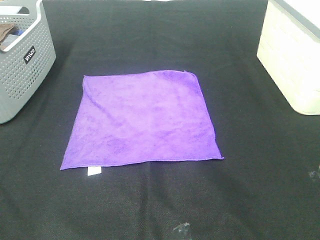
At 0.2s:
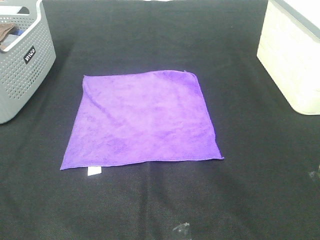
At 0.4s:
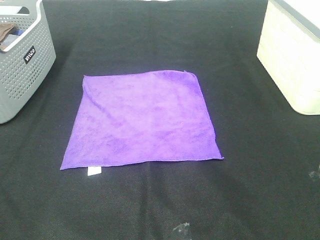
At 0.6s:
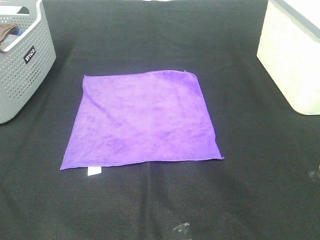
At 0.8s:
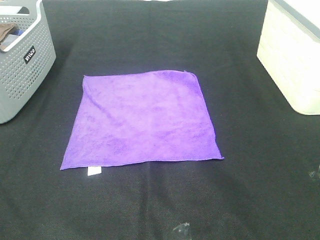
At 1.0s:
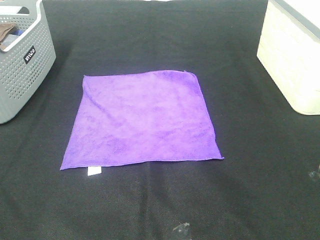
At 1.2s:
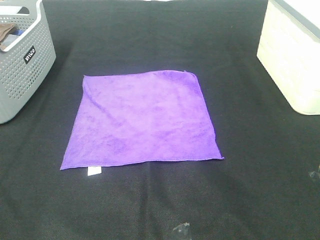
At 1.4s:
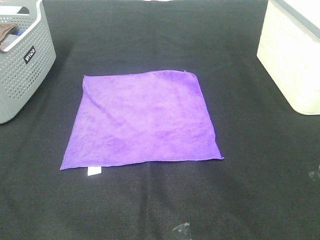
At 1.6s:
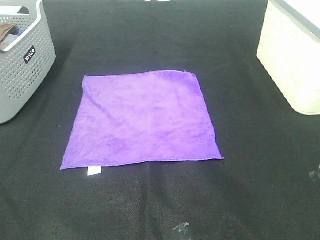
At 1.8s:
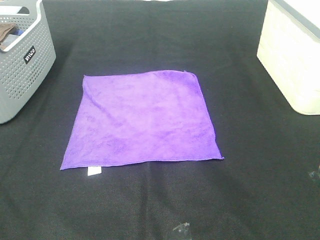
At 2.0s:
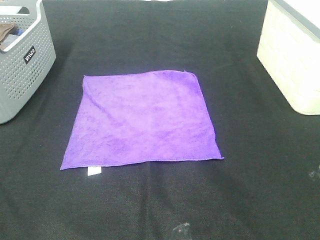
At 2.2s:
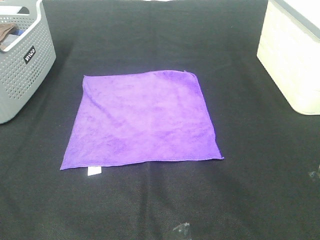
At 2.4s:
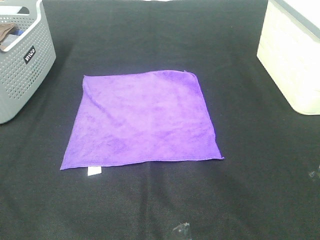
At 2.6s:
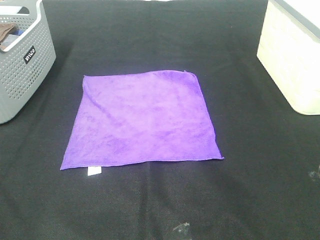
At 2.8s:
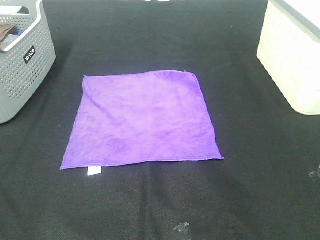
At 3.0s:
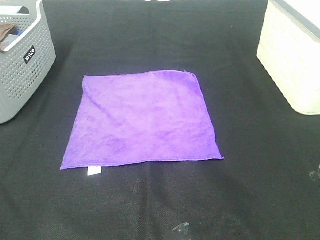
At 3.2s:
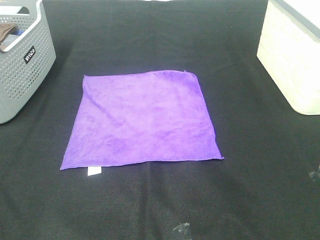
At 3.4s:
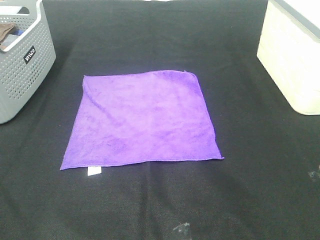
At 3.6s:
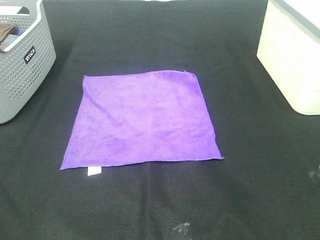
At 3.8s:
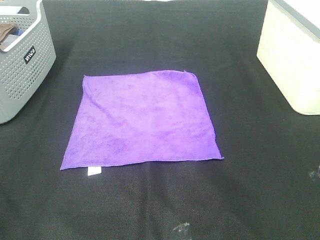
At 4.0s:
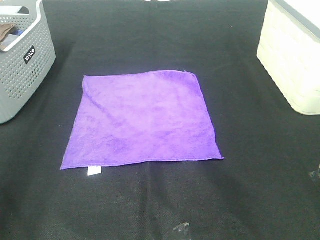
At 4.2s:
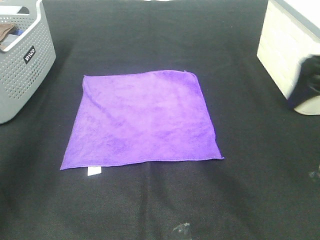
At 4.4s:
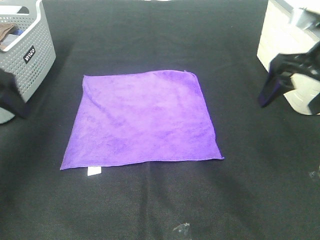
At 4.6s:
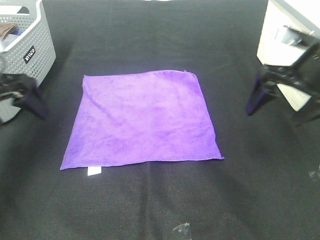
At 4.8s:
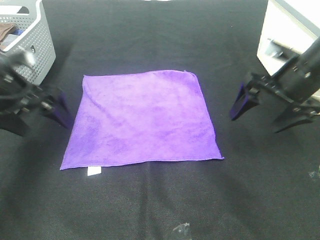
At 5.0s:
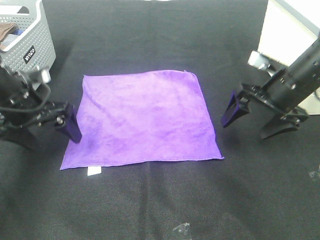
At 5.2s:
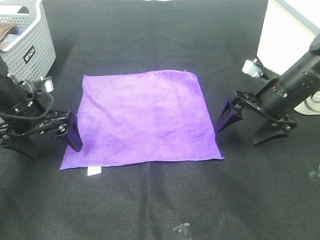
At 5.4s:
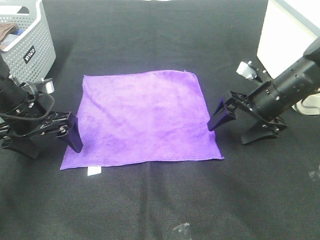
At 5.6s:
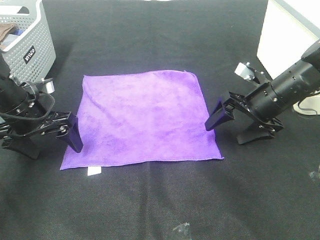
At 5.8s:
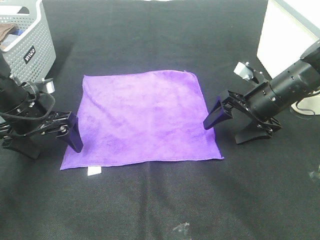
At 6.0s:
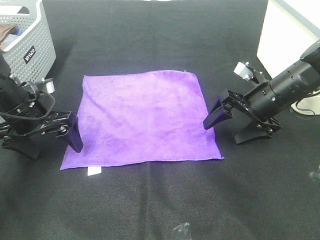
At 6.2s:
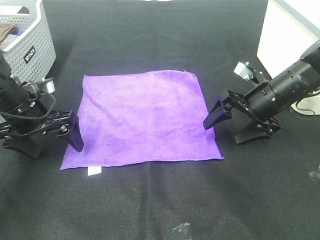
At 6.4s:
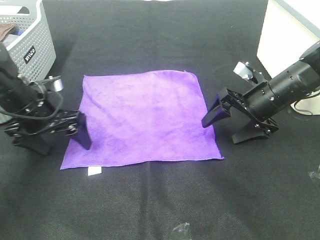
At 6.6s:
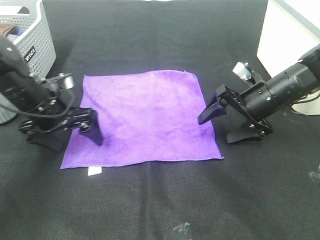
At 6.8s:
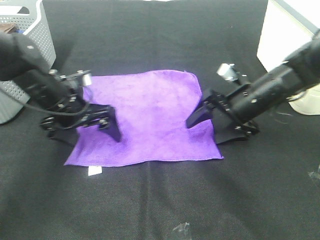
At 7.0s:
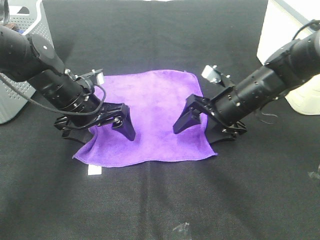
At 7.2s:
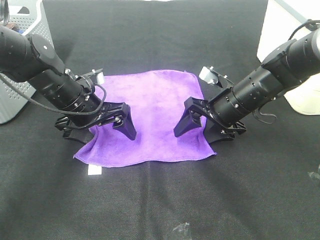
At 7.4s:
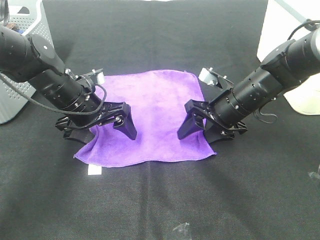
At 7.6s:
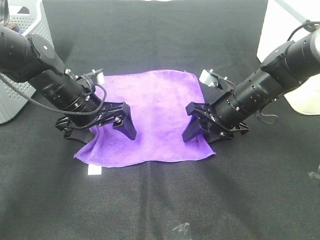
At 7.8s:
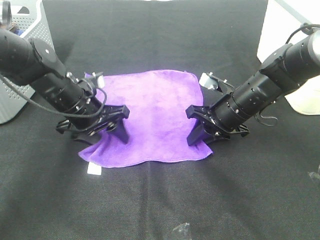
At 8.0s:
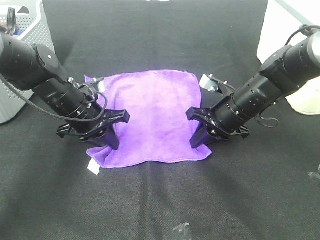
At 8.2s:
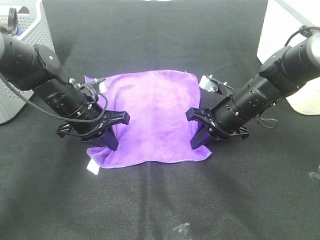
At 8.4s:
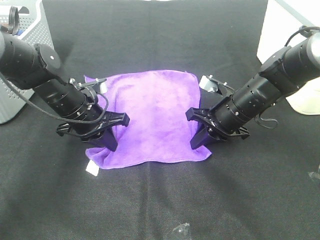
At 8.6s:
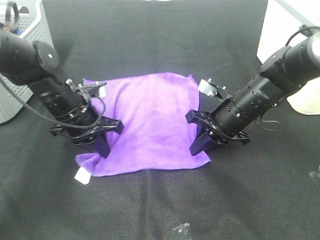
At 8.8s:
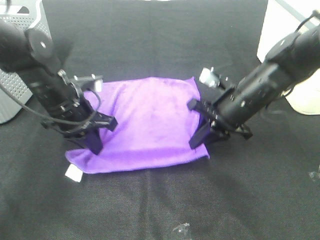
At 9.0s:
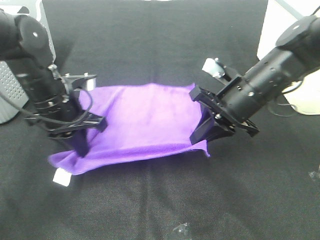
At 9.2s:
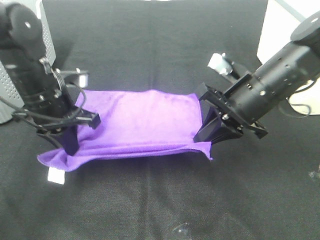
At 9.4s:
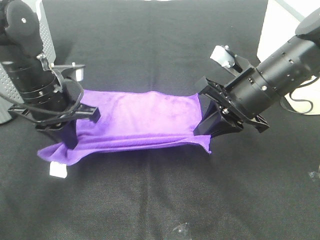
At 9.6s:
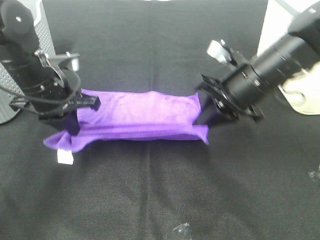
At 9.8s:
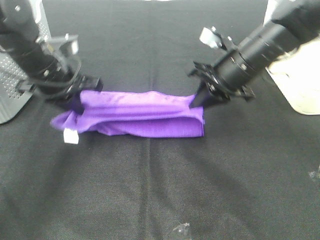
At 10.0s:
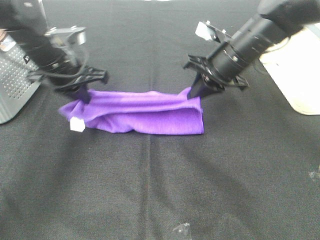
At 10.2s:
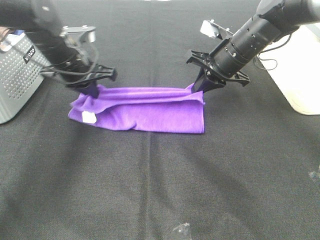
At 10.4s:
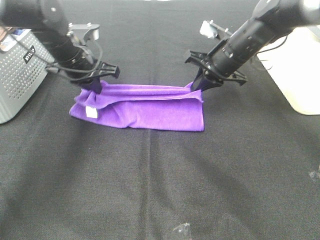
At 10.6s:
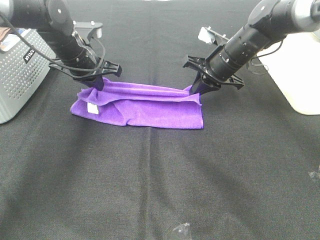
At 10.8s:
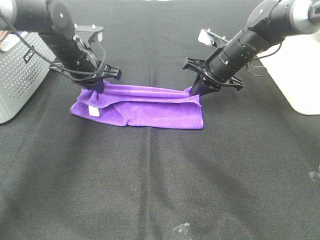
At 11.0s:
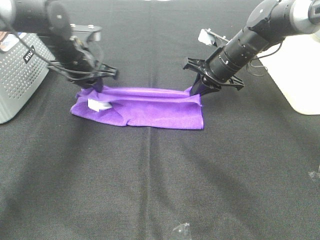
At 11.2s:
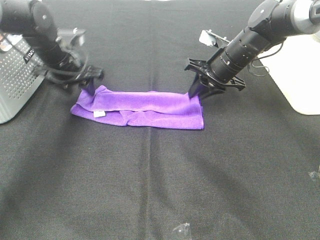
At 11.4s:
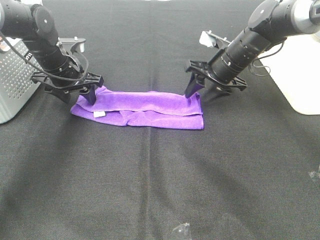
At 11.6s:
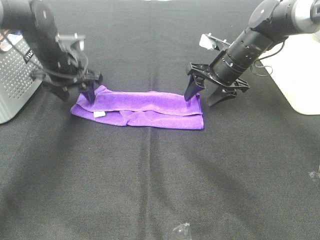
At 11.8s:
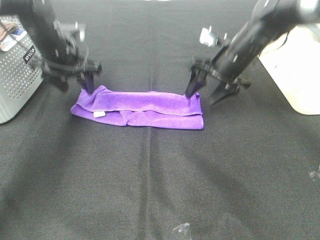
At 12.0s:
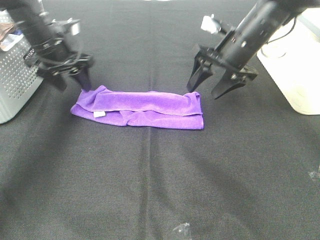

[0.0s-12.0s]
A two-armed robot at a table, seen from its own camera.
Task of the whole recording: Fold towels.
Step, 0.0s to 8.0s: Left hand: grab the bottom left corner of purple towel.
Step, 0.0s to 8.0s: Right hand: grab the bottom right corner of purple towel.
Step, 8.2s to 10.8s: Left hand: fold the purple towel up.
Step, 8.2s to 10.8s: Right hand: fold the purple towel up.
1.6s to 3.0s: Both grippers stay put.
3.0s to 4.4s: The grippers both shift forward by roughly 30 cm.
4.4s to 6.0s: The left gripper goes approximately 15 cm downward and to the right. The right gripper is displaced downward and forward by roughly 15 cm.
6.0s to 7.6s: The right gripper moves to the left, some 5 cm, and closes, while the left gripper moves to the right, roughly 10 cm.
7.6s to 9.0s: The left gripper ends up about 5 cm from where it was, and closes up. Meanwhile the right gripper moves upward, about 5 cm, and closes its fingers.
9.0s to 10.4s: Both grippers travel together forward, approximately 15 cm.
10.4s to 12.0s: The left gripper moves to the left, about 5 cm, and opens up. The right gripper changes place by about 5 cm, and opens.

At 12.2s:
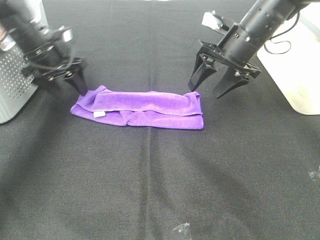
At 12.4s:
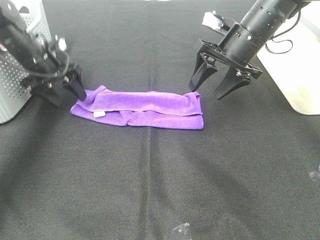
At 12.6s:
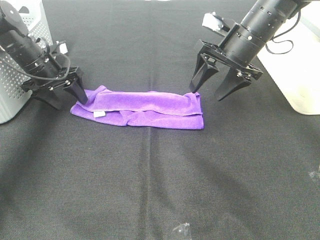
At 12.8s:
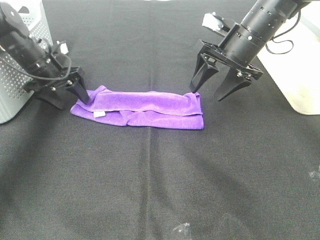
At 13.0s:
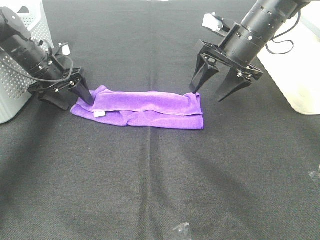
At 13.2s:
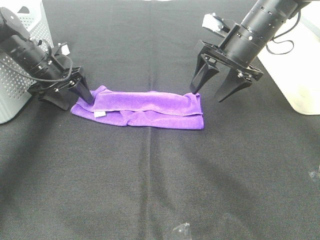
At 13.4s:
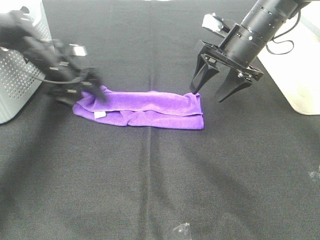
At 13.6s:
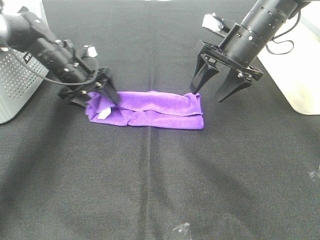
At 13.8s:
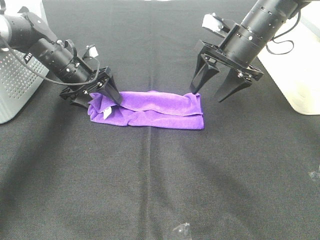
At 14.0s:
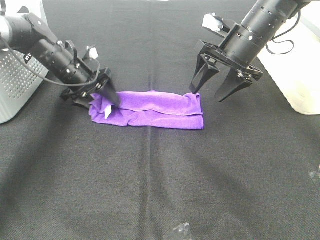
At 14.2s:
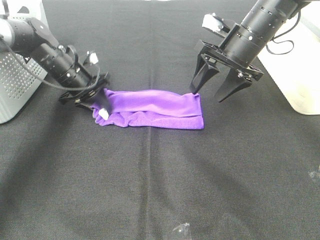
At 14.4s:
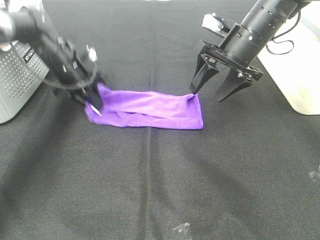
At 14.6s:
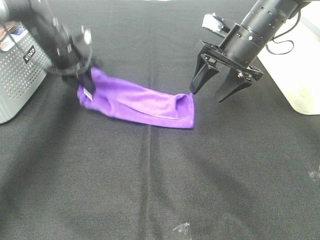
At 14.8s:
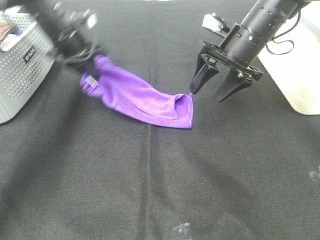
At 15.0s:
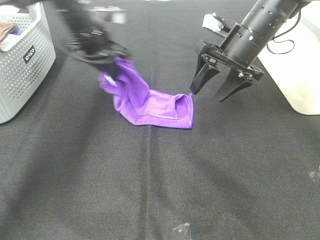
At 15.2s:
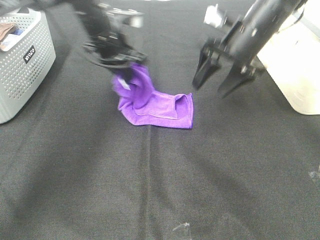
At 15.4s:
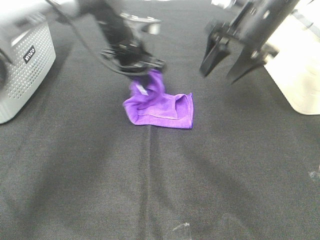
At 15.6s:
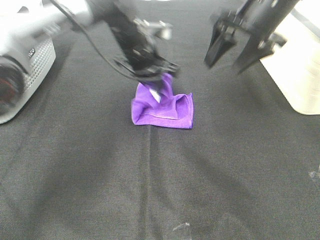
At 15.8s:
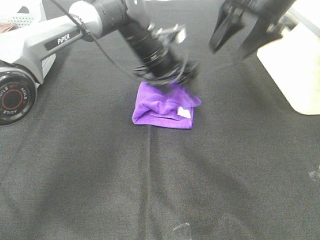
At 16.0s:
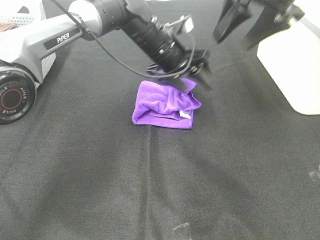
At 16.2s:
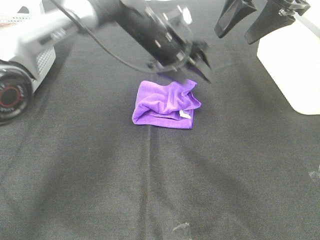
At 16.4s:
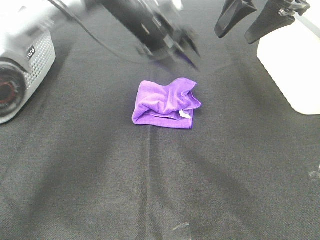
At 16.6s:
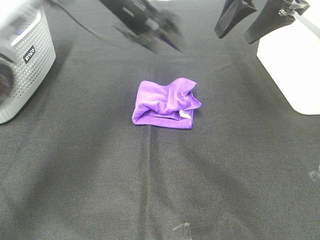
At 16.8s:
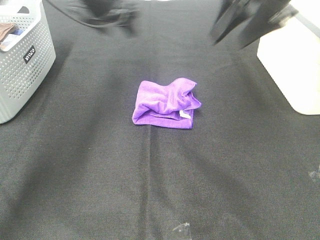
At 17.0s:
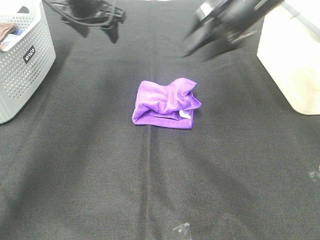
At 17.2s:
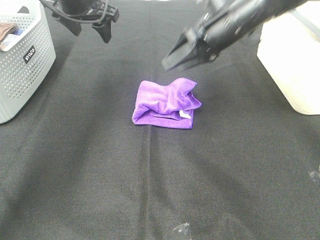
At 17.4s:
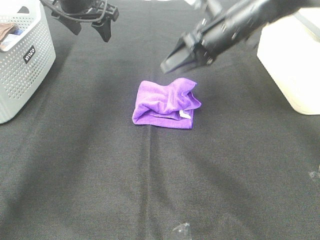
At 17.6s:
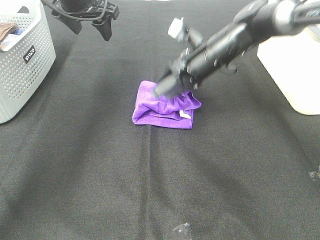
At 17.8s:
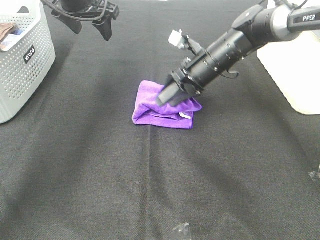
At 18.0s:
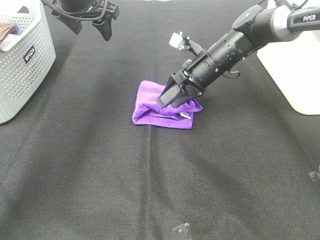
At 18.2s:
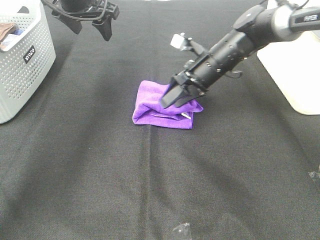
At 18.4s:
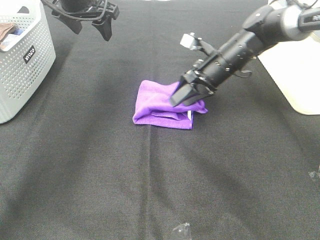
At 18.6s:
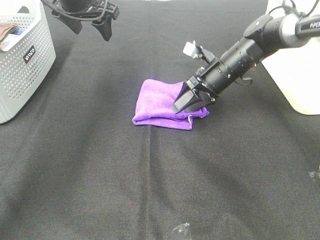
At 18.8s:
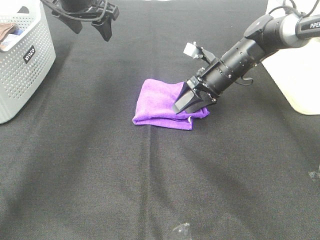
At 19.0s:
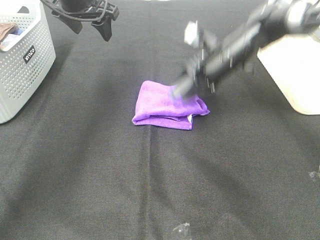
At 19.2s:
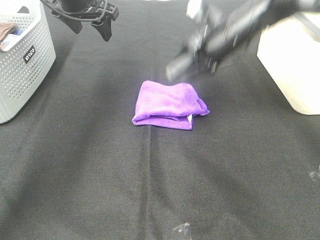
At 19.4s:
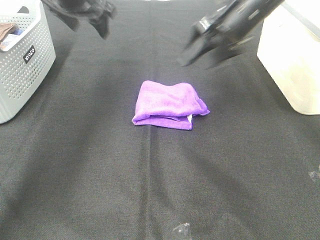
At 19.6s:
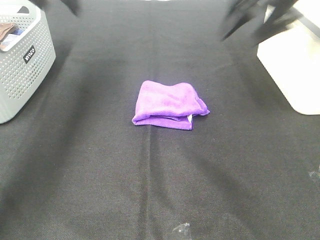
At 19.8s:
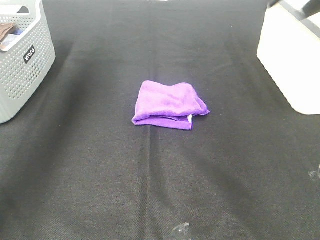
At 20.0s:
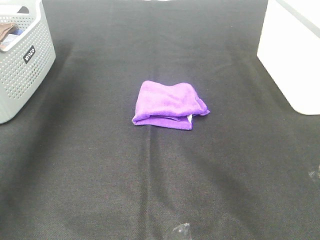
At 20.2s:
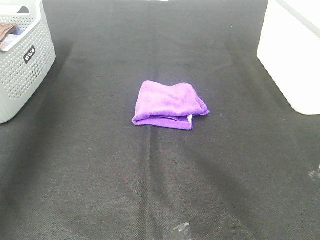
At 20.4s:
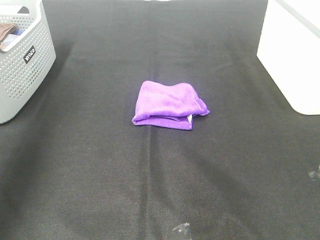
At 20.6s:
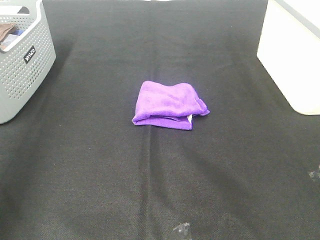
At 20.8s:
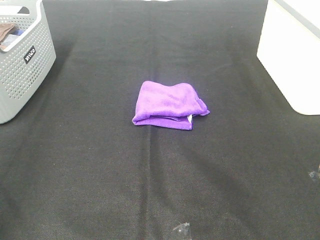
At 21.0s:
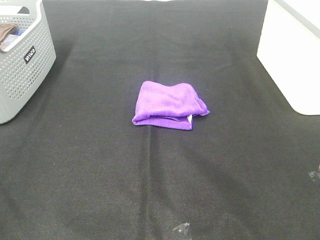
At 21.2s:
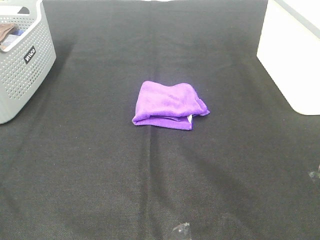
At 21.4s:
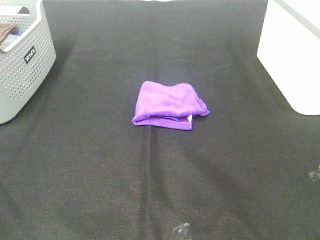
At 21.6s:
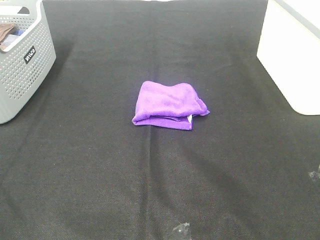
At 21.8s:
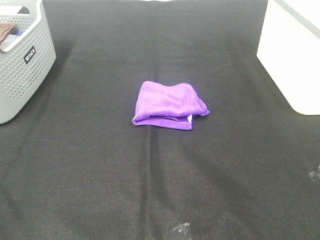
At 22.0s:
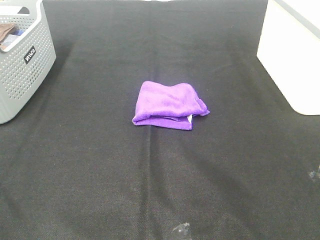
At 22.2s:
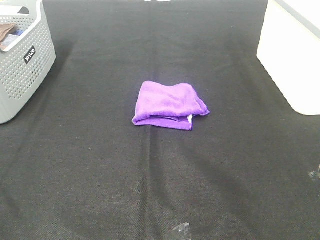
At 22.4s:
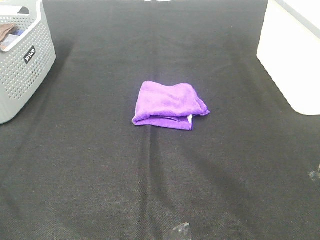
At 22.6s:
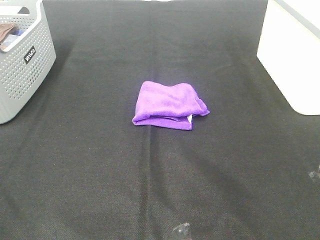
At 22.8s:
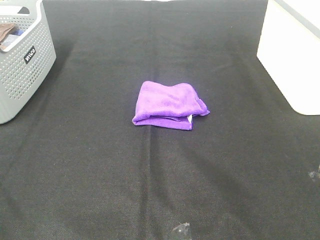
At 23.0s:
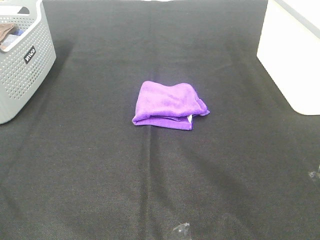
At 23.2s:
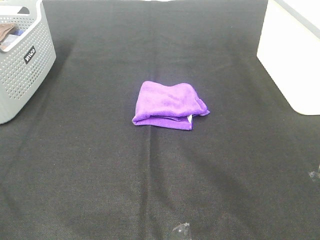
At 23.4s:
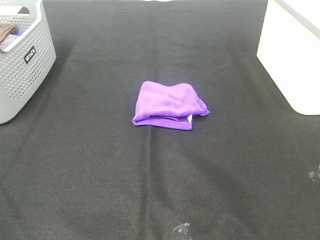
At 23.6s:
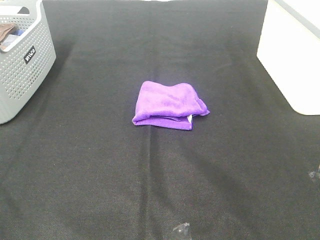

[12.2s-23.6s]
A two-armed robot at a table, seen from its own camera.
Task of the whole recording: Fold towels.
Step, 12.2s to 15.6s: Left hand: fold the purple towel from left to right.
Step, 15.8s to 18.0s: Right hand: adjust the purple towel.
12.2s to 13.6s: The left gripper moves to the right, some 5 cm.
13.6s to 15.0s: The left gripper shifts about 10 cm upward and to the right, and closes its fingers.
15.0s to 16.4s: The left gripper travels to the right by approximately 10 cm, and opens, while the right gripper goes approximately 15 cm upward.
16.4s to 17.8s: The right gripper is displaced downward by some 20 cm. The left gripper goes about 15 cm to the left and upward.
17.8s to 19.4s: The right gripper moves upward and to the right, roughly 15 cm.
19.4s to 20.8s: The two grippers go approximately 40 cm backward.
22.2s to 23.6s: Both grippers stay about where they are.
